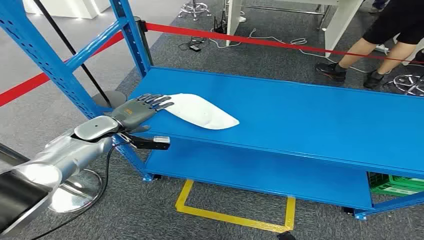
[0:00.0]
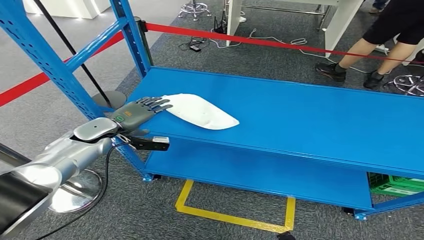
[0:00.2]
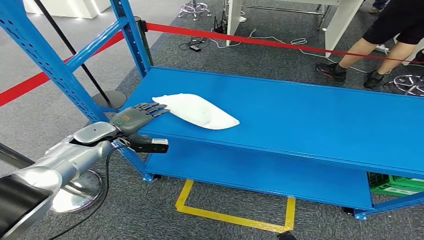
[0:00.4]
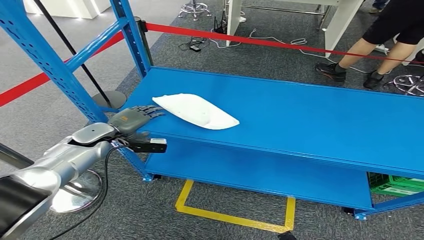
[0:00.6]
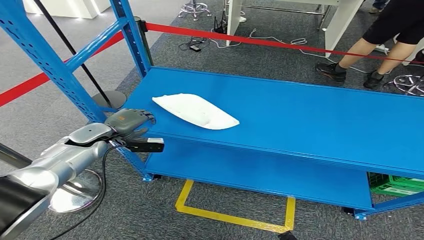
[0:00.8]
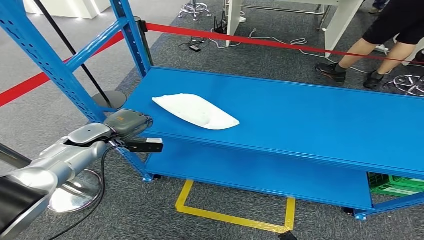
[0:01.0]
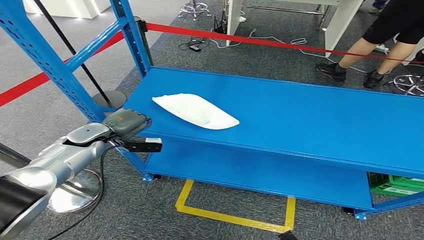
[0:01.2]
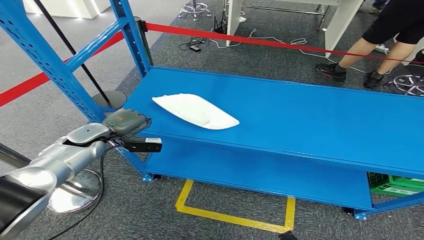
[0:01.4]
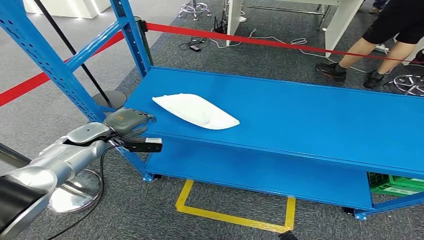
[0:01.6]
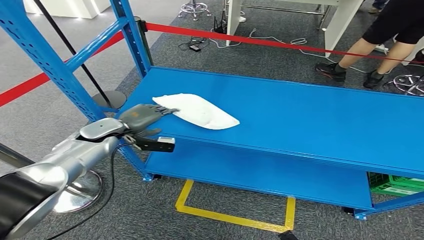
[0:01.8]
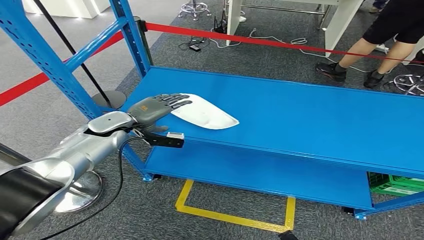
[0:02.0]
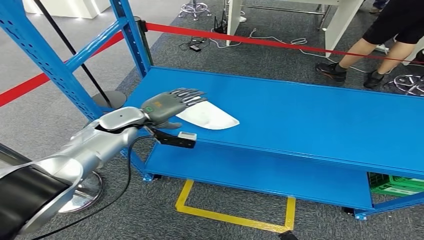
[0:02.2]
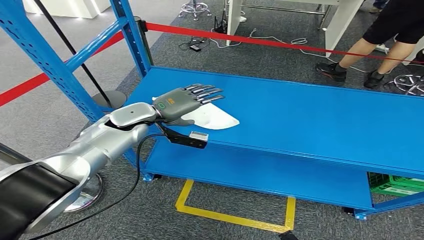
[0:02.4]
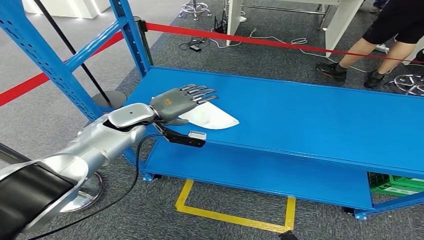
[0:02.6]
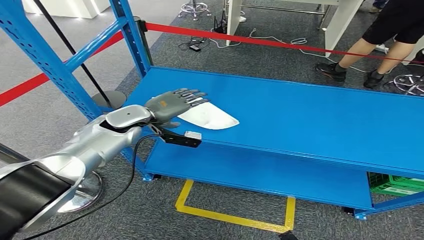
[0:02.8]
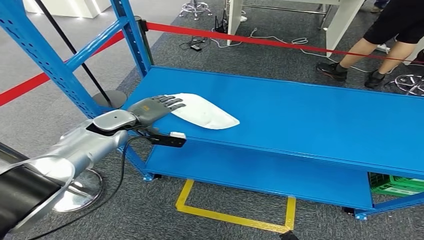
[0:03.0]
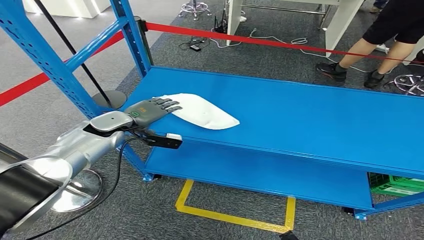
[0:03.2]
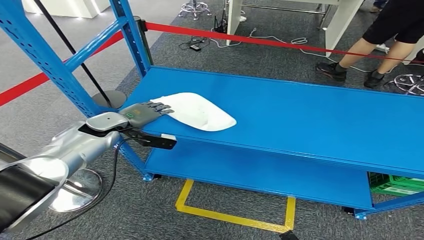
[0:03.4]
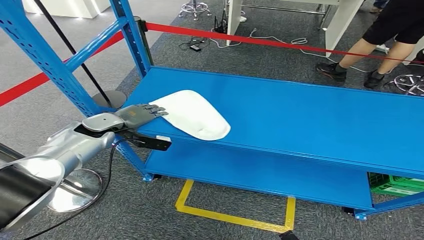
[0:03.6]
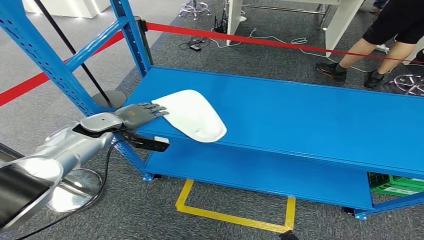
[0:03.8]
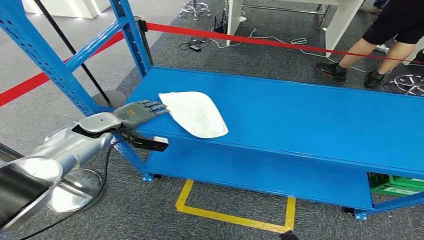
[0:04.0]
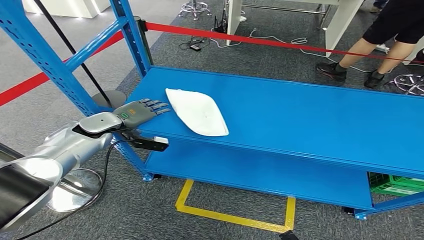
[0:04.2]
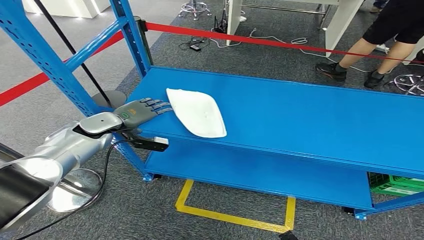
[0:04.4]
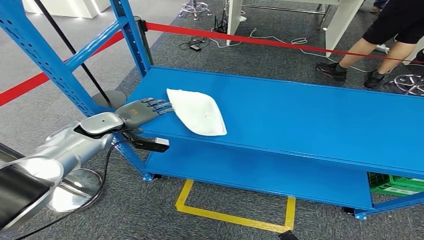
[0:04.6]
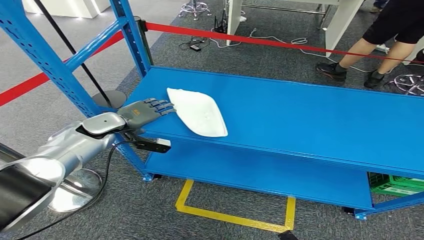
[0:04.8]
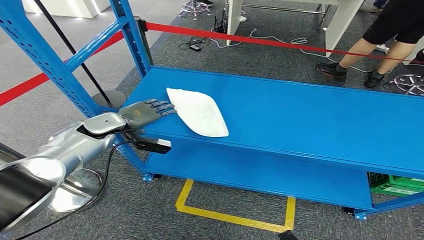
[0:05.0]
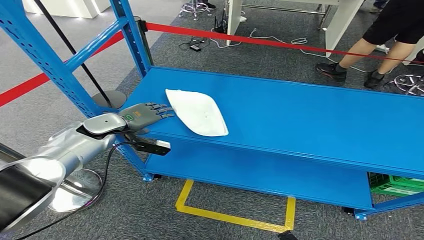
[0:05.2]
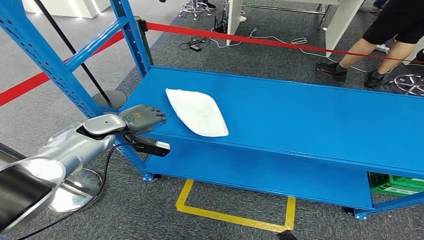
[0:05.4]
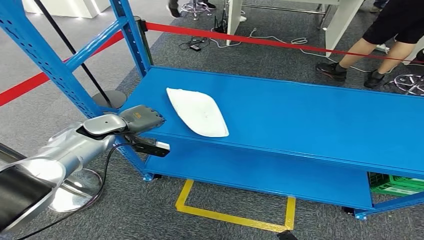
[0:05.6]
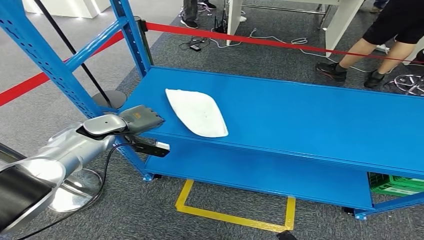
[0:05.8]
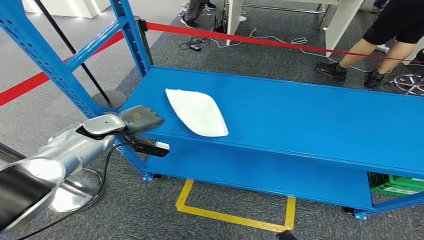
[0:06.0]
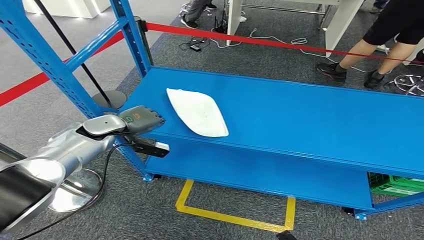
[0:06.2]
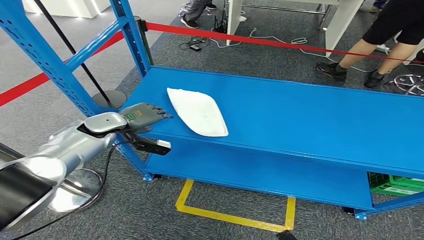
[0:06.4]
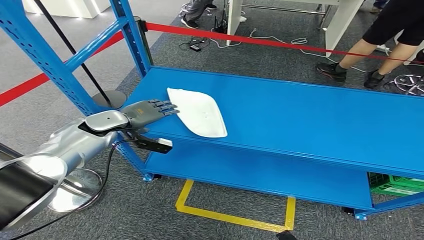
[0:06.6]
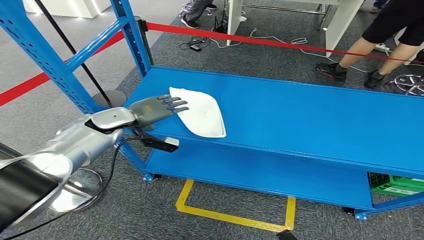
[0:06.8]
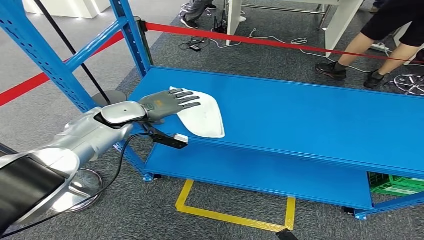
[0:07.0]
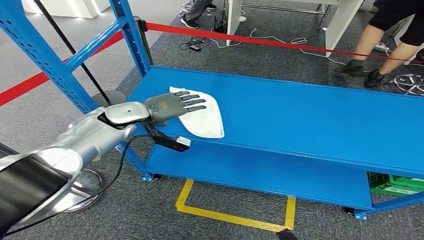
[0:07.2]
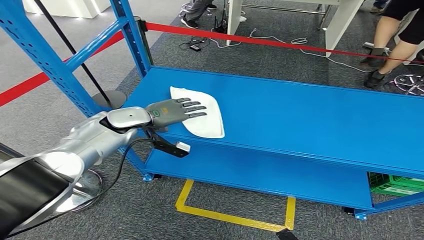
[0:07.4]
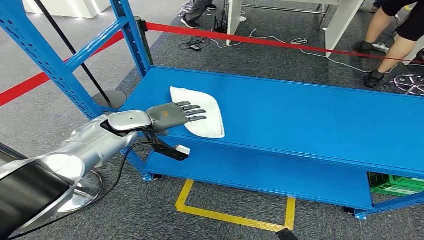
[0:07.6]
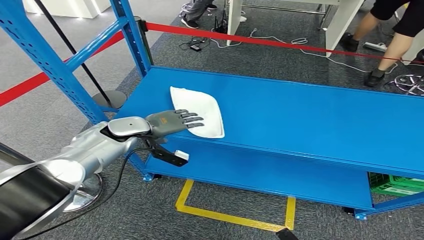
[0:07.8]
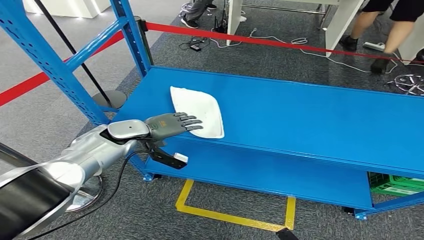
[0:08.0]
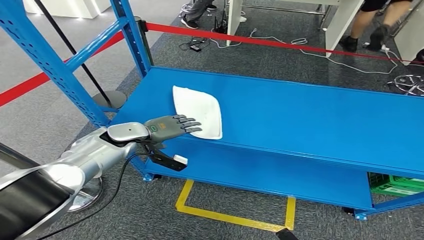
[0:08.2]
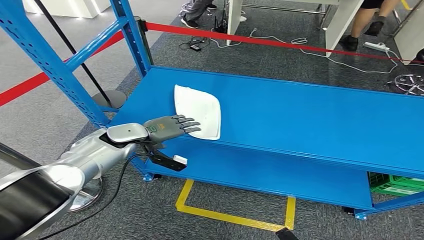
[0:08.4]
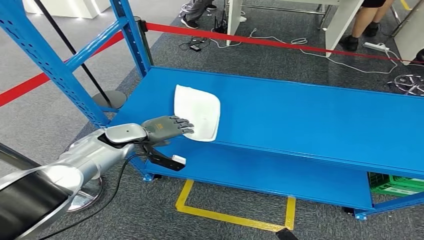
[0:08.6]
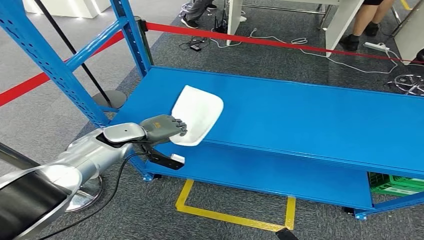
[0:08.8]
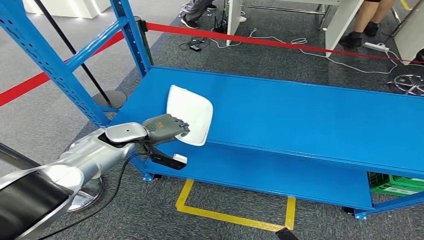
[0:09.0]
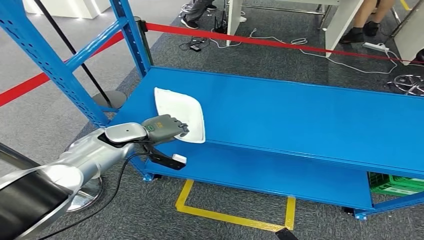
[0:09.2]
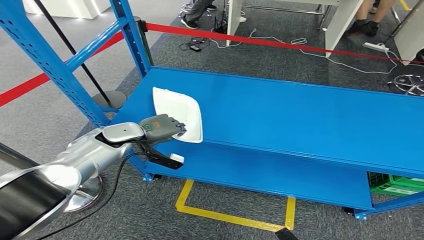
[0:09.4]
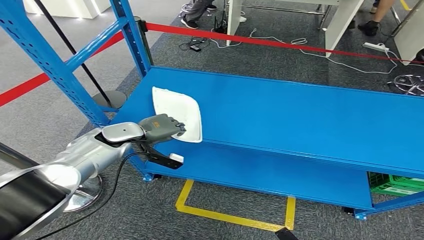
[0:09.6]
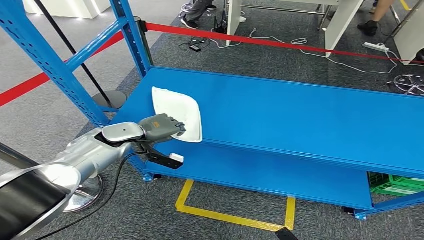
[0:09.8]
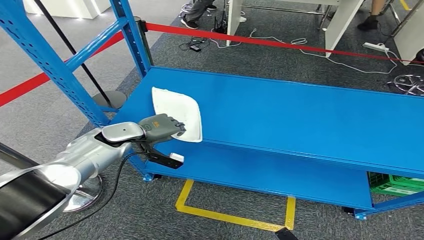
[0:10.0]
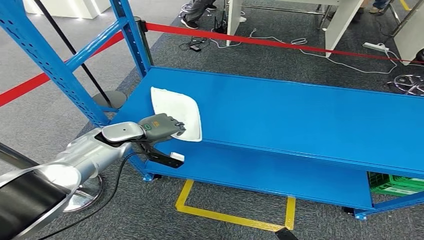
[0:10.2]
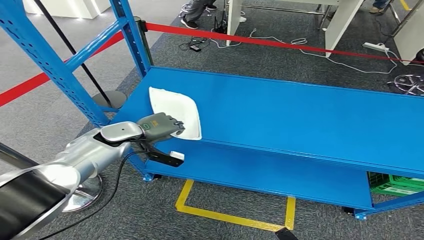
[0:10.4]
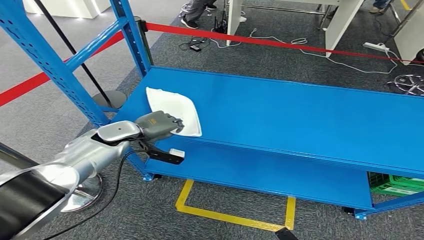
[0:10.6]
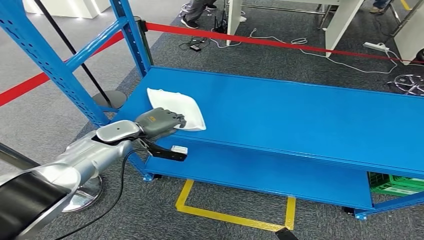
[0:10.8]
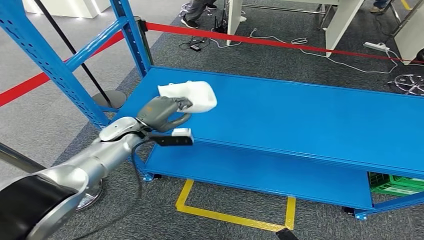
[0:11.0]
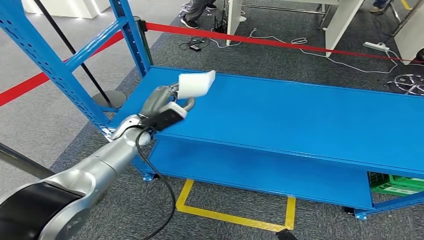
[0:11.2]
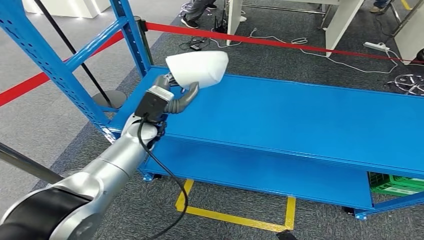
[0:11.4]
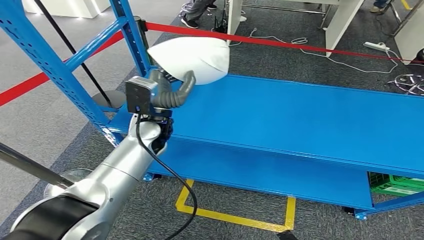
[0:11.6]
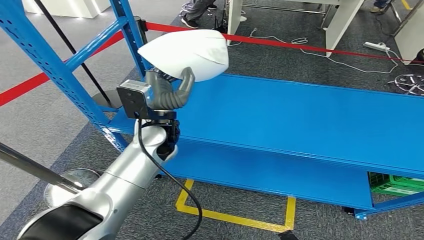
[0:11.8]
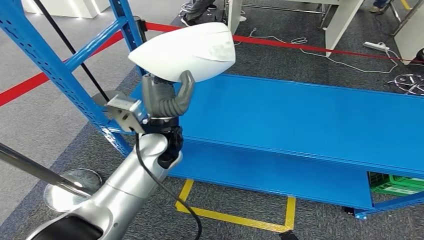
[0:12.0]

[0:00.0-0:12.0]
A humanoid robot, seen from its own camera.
Step, 0:00.0 to 0:11.4: Pick up the small component from the shelf.
0:01.6 to 0:03.0: The left hand moves to the right, roughly 5 cm.
0:03.0 to 0:06.0: The hands move only a little.
0:06.0 to 0:07.6: The left hand shifts some 5 cm to the right.
0:07.6 to 0:09.0: The left hand changes place by about 5 cm.
0:09.0 to 0:10.4: Neither hand changes place.

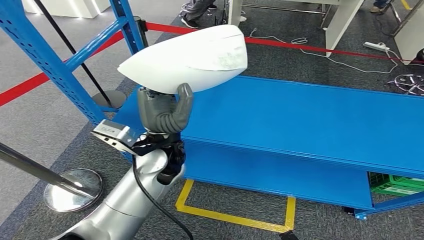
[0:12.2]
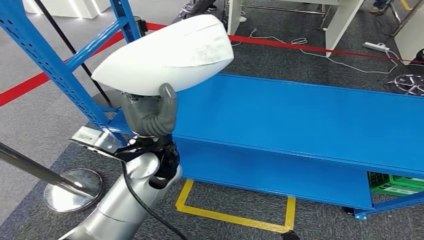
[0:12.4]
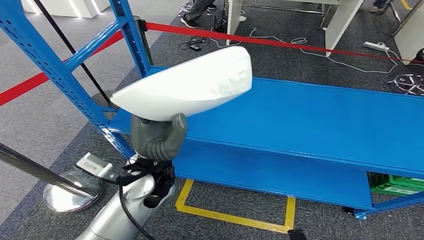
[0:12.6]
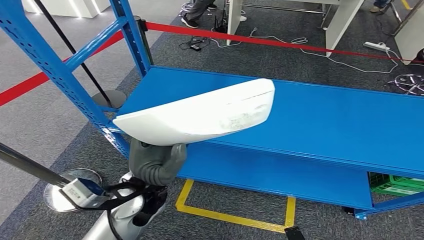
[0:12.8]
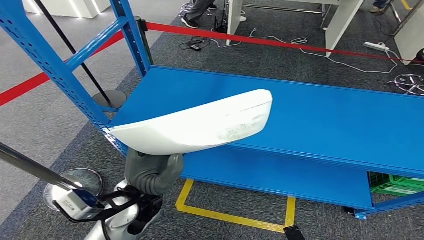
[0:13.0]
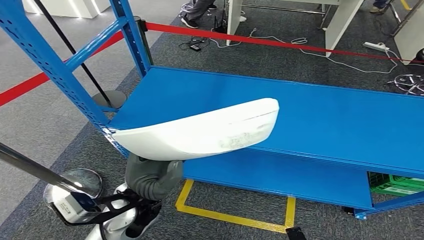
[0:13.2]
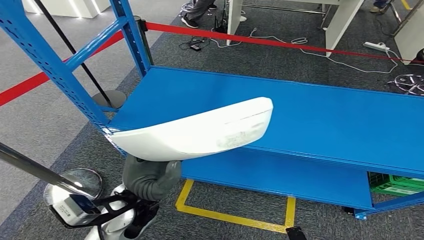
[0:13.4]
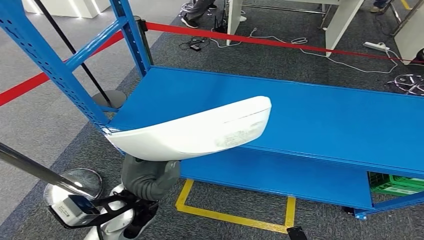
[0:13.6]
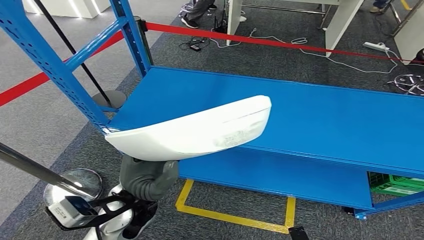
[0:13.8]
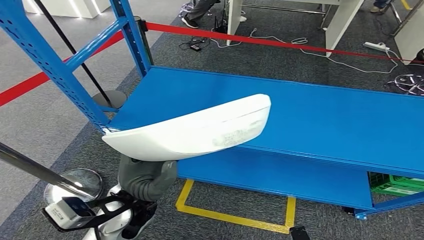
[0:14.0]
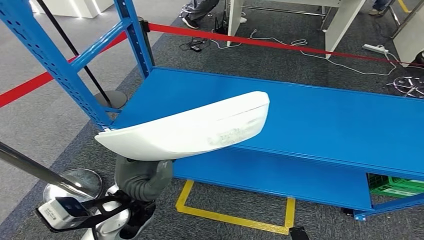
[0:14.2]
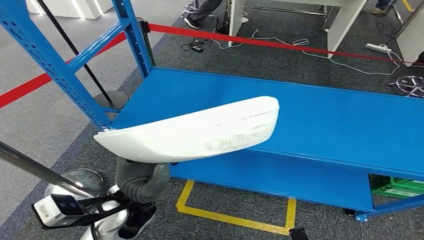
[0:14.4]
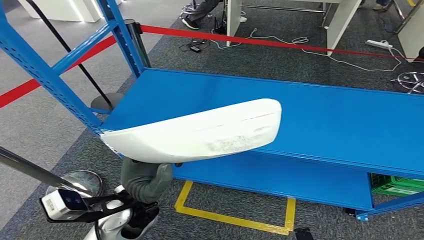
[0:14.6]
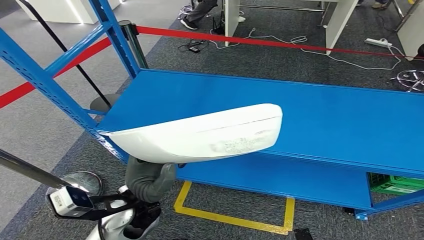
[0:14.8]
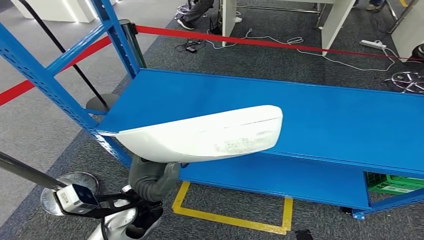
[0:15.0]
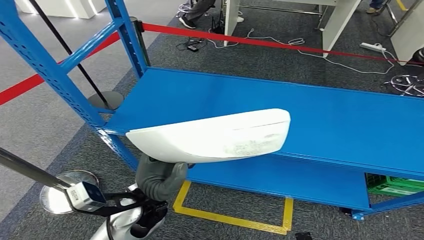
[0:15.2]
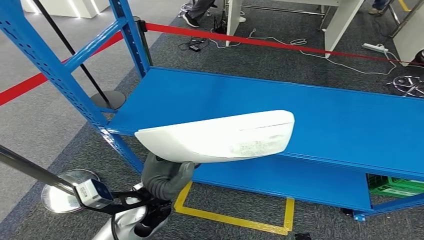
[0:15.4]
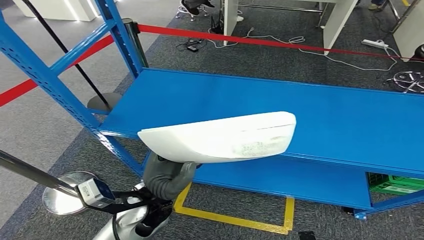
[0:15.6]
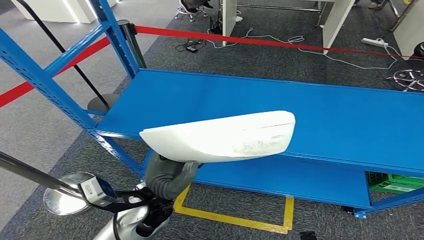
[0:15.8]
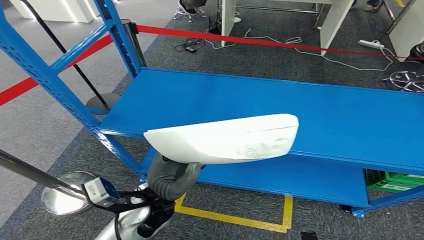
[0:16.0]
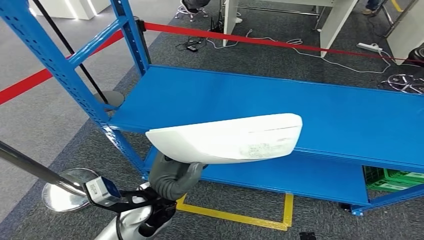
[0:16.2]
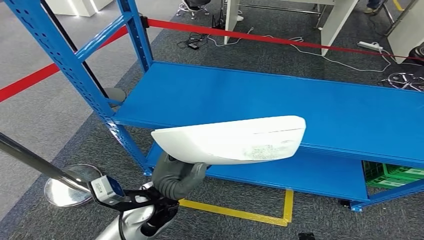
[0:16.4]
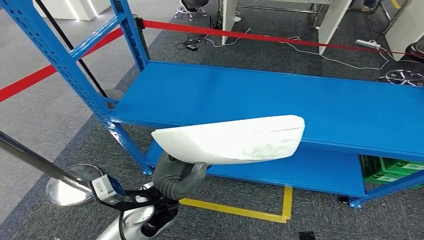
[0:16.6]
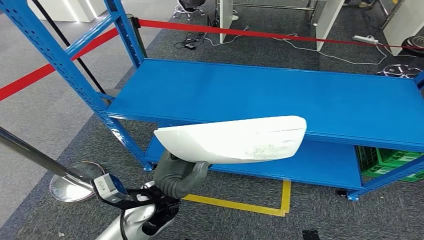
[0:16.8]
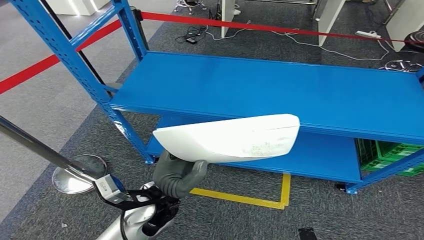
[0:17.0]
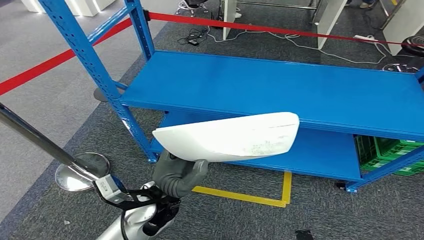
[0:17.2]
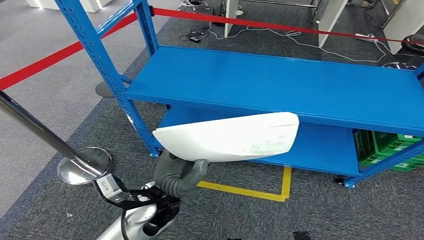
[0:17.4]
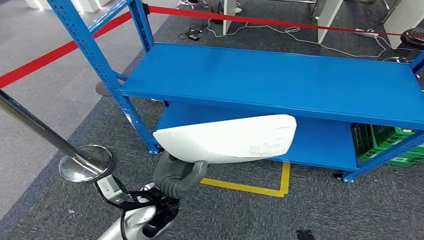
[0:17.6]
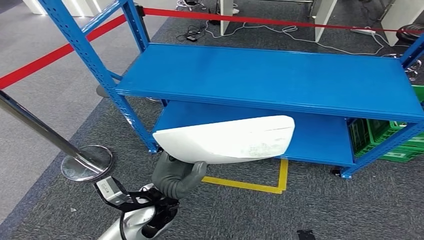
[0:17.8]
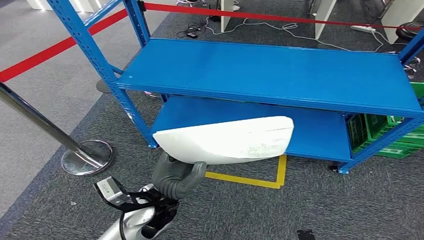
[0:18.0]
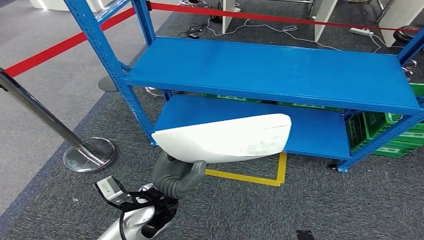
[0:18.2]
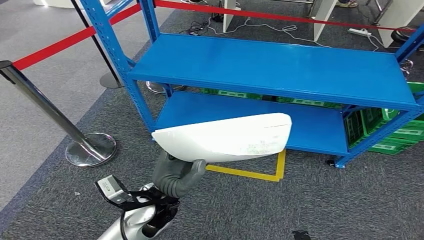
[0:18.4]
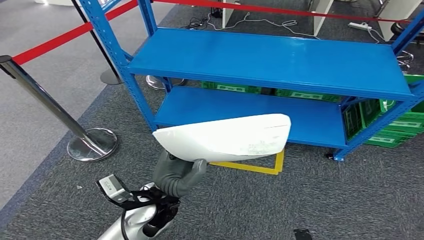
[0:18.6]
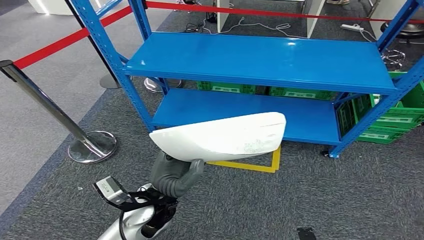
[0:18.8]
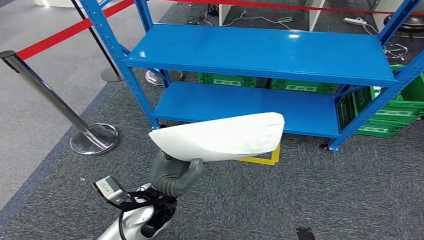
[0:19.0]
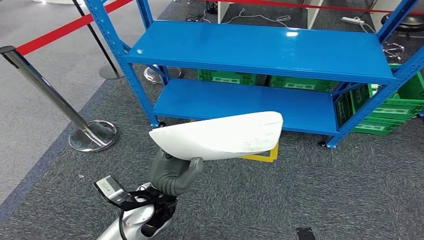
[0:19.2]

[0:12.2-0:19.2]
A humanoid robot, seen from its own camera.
0:12.2 to 0:13.6: The left hand goes about 10 cm backward and downward.
